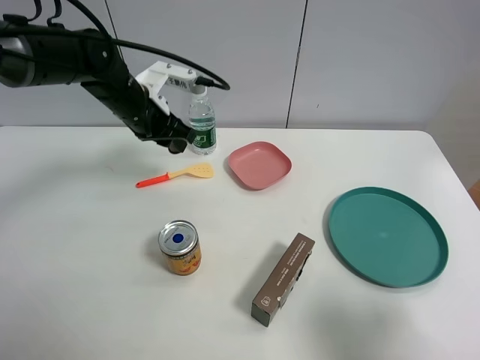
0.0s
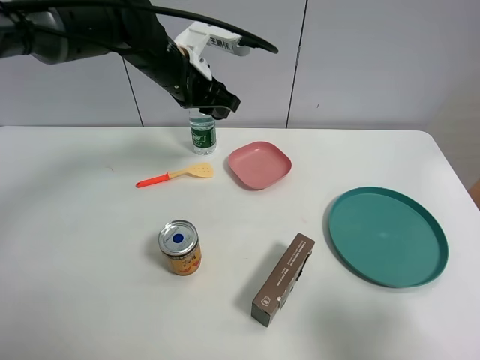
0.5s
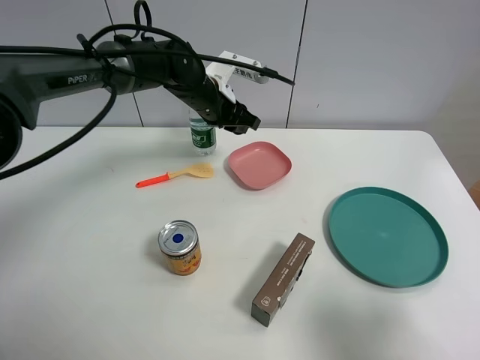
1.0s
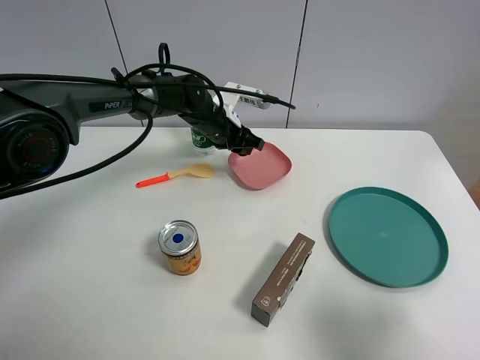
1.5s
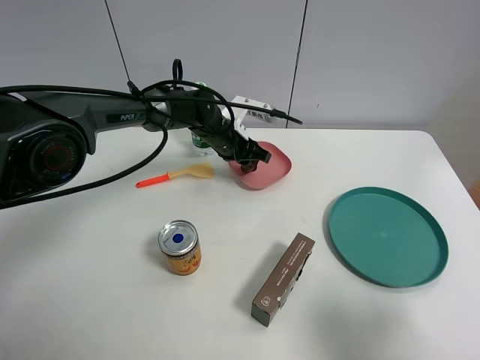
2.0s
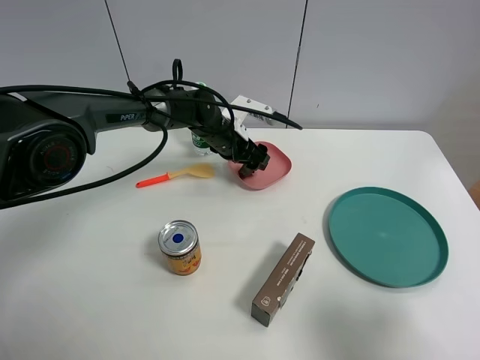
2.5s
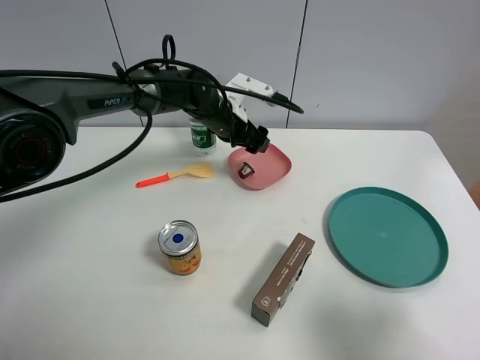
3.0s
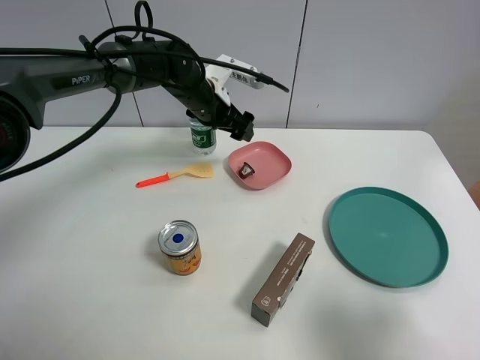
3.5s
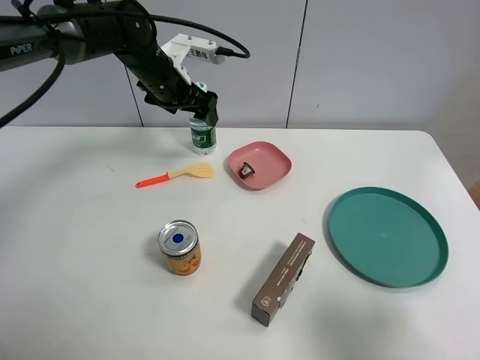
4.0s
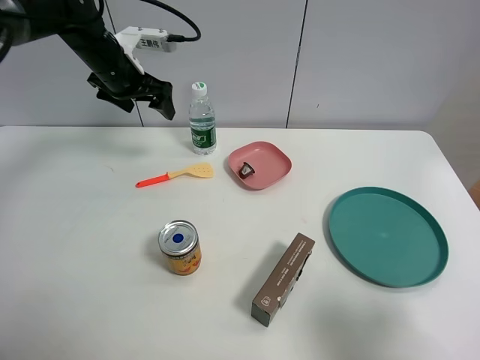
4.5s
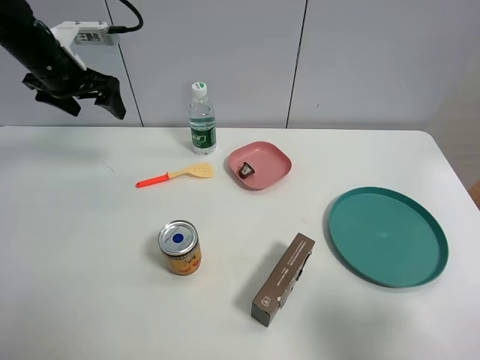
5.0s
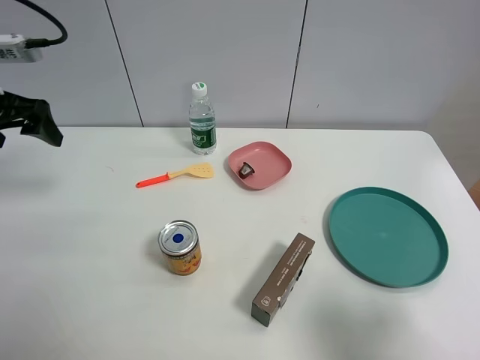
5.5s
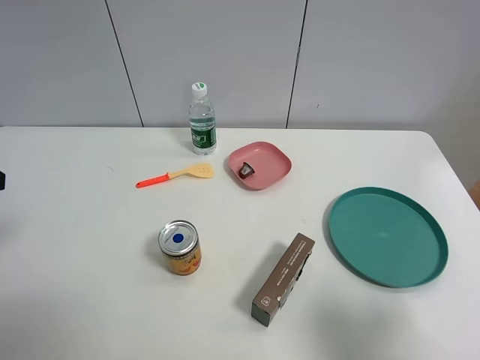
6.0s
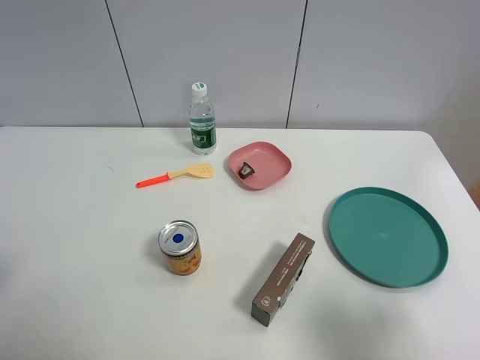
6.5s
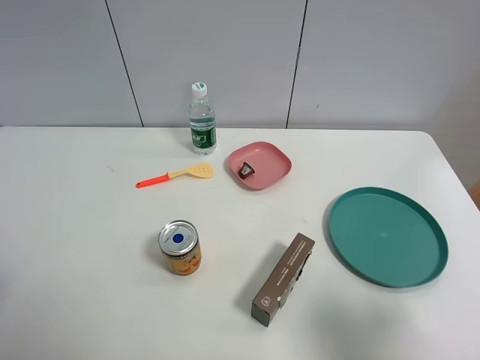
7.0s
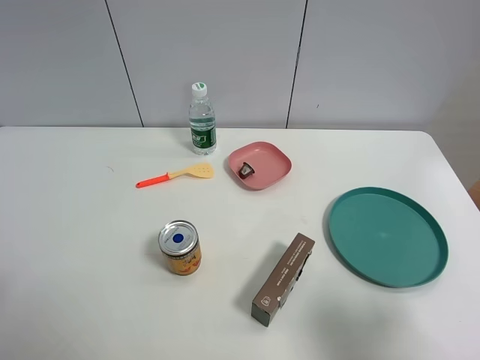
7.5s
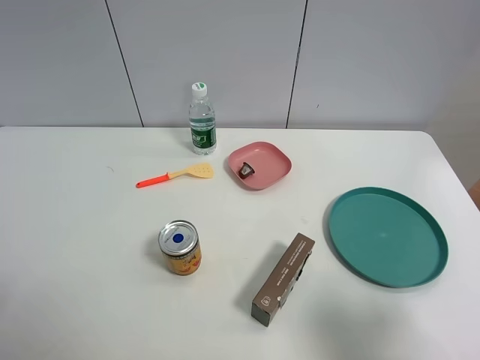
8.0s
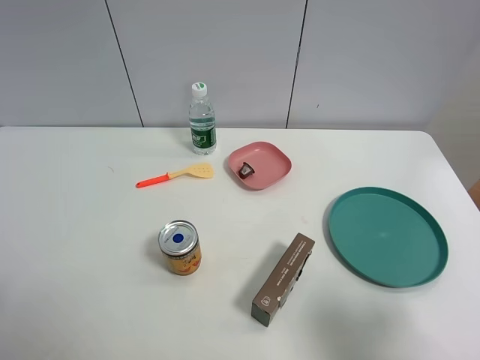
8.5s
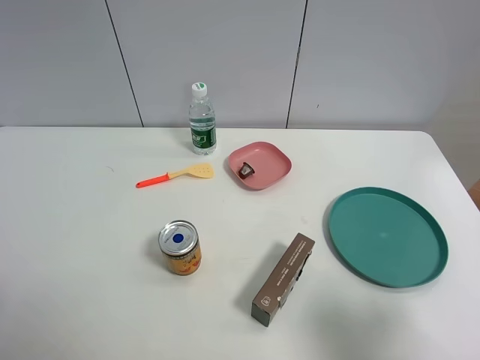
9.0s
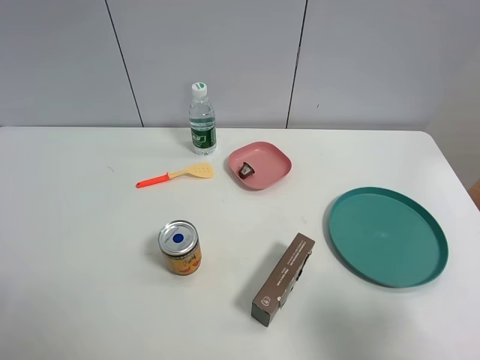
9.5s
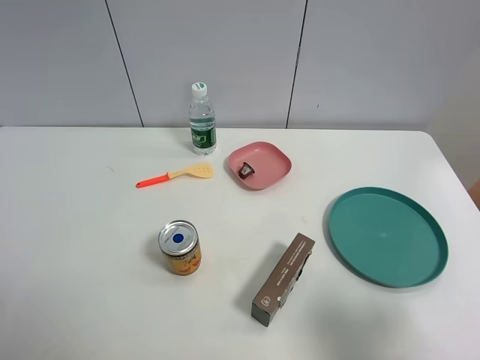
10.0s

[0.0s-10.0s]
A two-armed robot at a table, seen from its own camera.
Task of the whole recording: the gripper move the object.
Step, 0.0s to 2.5s: Place the coffee capsule into the pink plate with the left gripper.
0.0s to 2.0s: The left gripper travels to the right, downward and forward by approximately 15 cm.
2.0s to 4.0s: The left gripper shifts about 15 cm upward and to the left, and opens.
4.0s to 6.0s: The left gripper is displaced backward and to the left by roughly 35 cm.
